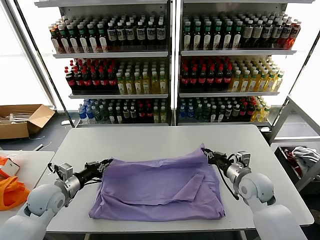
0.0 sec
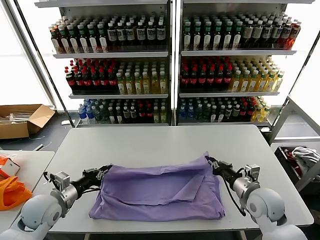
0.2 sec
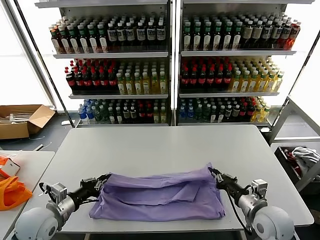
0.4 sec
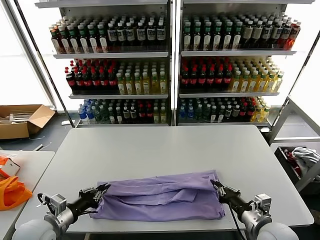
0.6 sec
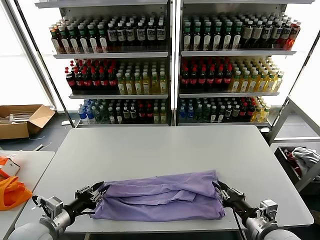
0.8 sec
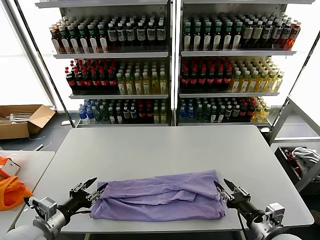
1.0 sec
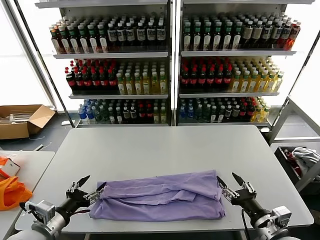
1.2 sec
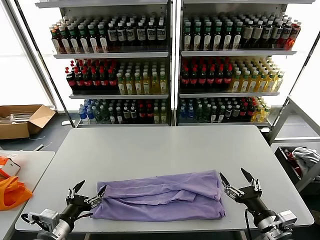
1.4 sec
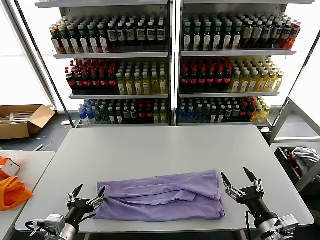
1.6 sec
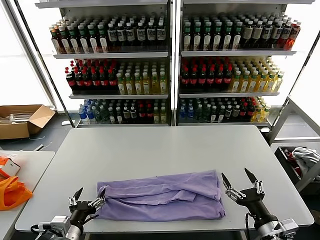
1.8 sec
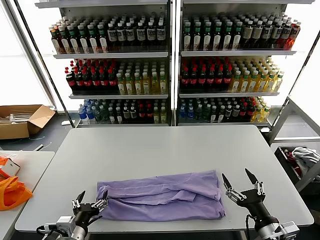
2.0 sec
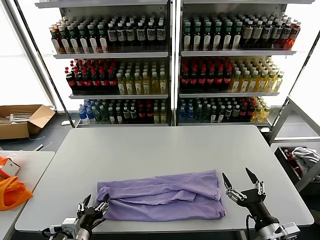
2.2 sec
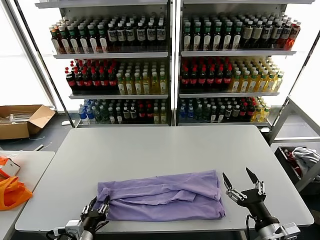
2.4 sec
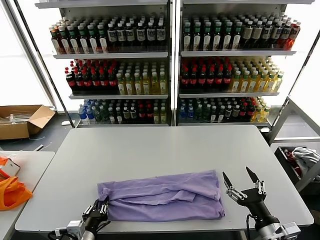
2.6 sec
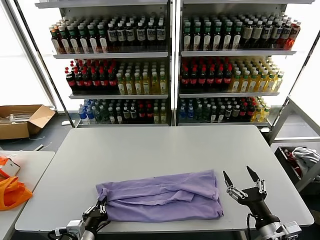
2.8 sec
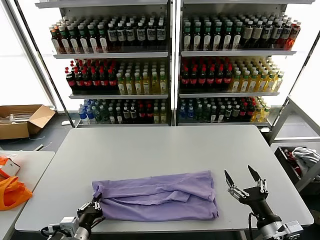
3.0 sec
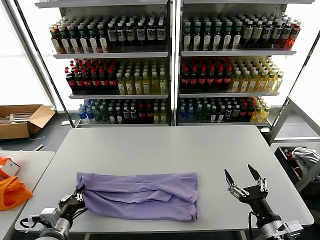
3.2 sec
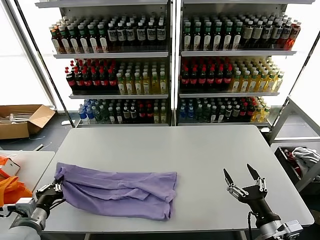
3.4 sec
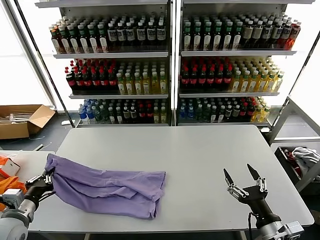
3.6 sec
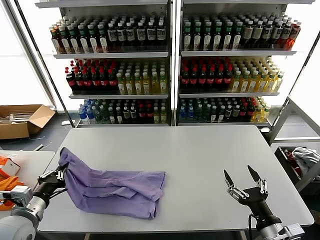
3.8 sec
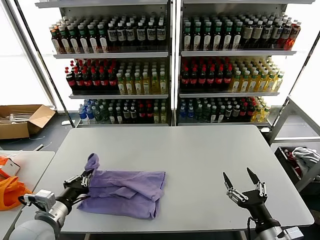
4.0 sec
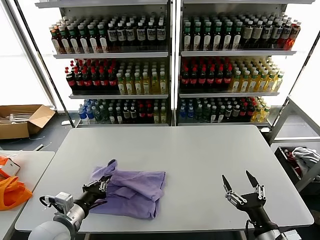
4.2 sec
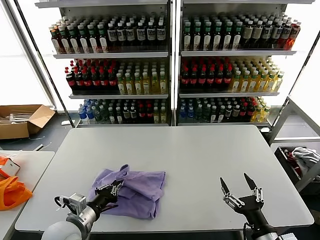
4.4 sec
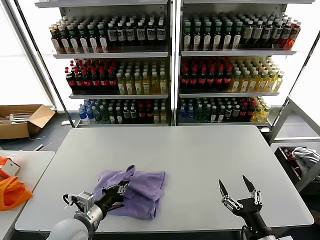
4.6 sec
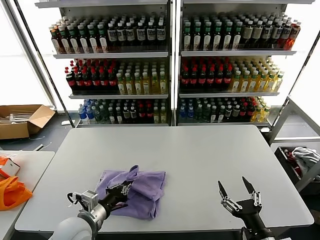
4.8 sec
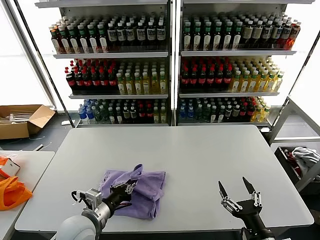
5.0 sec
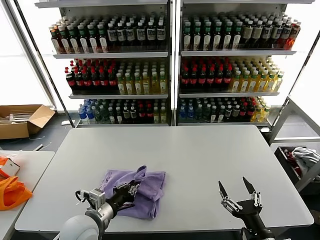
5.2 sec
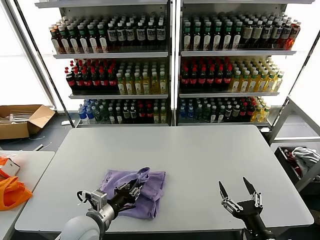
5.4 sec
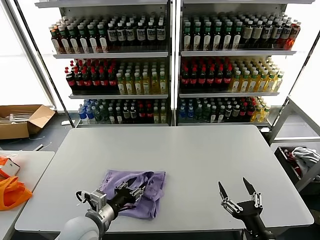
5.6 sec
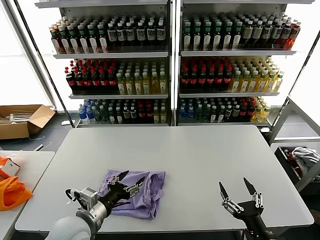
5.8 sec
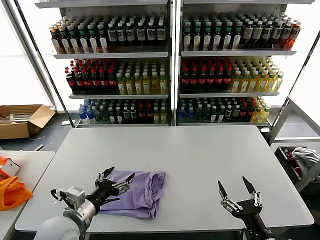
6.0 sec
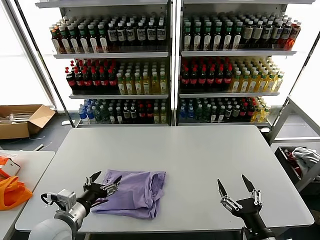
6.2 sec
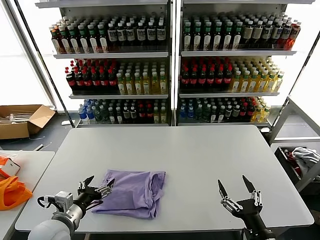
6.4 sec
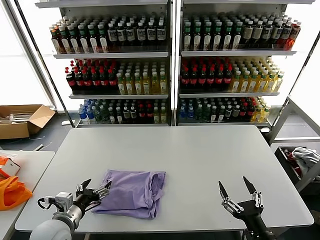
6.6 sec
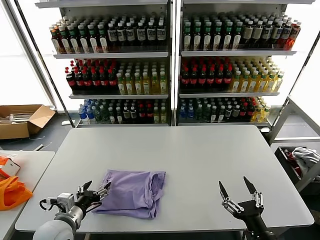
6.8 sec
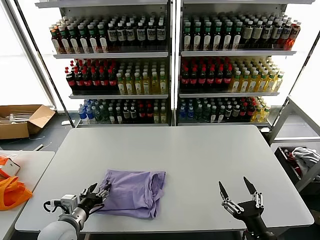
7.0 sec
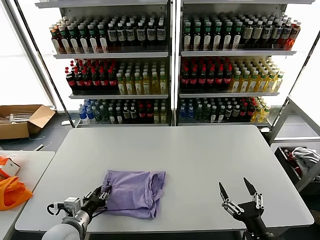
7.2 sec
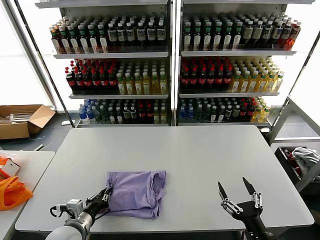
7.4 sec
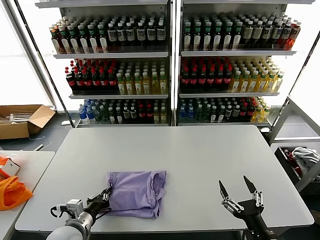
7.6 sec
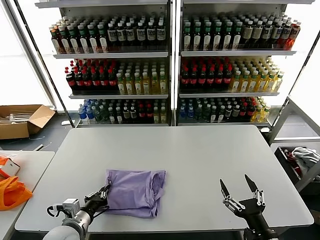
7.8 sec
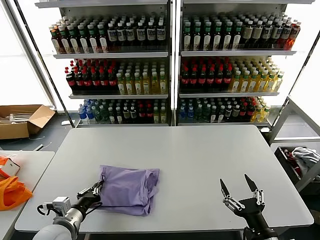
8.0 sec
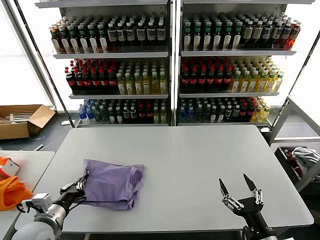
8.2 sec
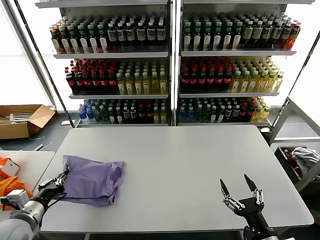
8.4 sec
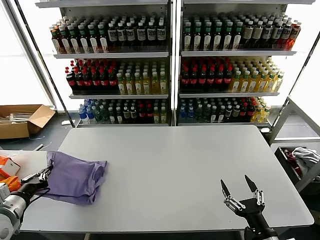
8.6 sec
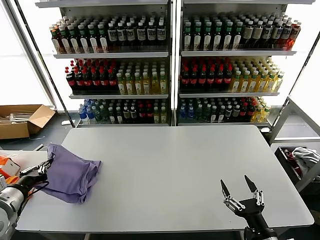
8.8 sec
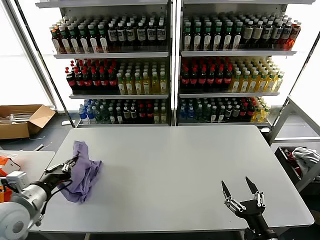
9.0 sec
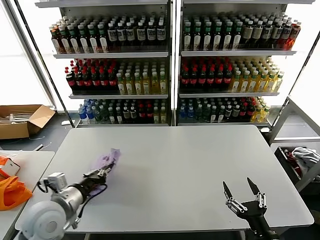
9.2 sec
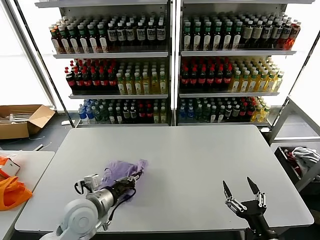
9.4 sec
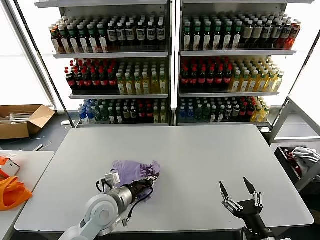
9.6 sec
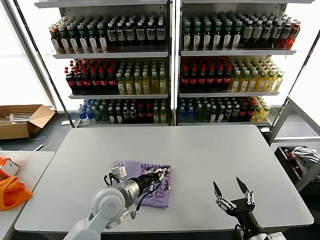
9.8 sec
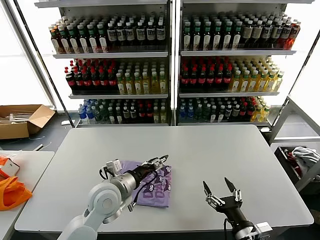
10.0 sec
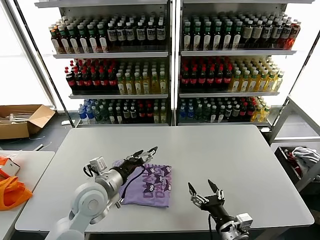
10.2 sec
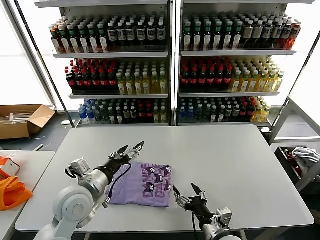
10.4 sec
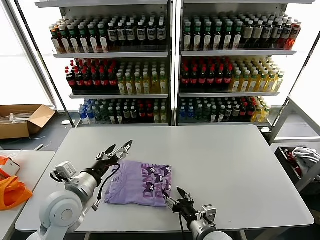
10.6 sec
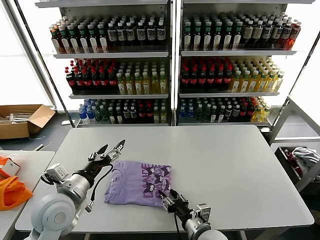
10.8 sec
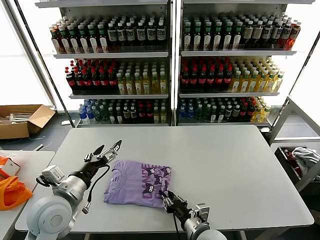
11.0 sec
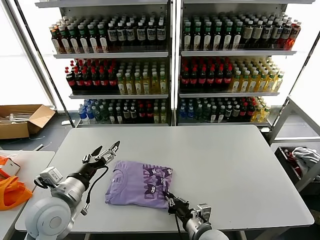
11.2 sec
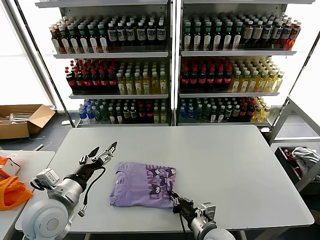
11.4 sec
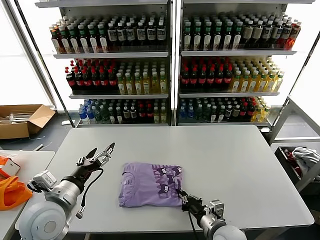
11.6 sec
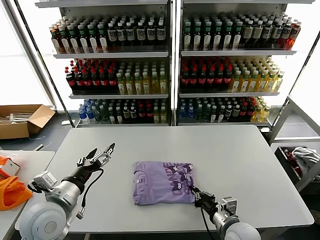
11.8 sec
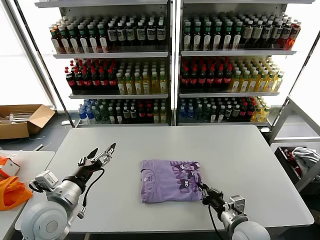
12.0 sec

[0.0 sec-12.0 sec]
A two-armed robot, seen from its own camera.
Task of the whole recording: fold and organize the clothes.
Step, 1.0 sec to 2.8 sec: use the left gripper to clamp the left edge of the fabric.
Step, 3.0 sec to 5.6 sec: use the left gripper to drag the left edge of the fabric to the left and folds it over the right edge.
Step, 5.8 sec to 9.8 sec: Flip the folded clothes over with left gripper.
0.0 sec to 1.6 sec: The left gripper heads backward and to the right, covering about 20 cm, and opens. Meanwhile the right gripper moves backward, roughly 20 cm, and opens up.
1.6 sec to 3.0 sec: The left gripper closes up.
3.0 sec to 4.4 sec: The left gripper moves roughly 15 cm to the left and comes back.
4.4 sec to 6.0 sec: The left gripper opens.
6.0 sec to 7.6 sec: The left gripper moves downward, approximately 10 cm, and closes its fingers.
7.6 sec to 9.0 sec: The left gripper shifts about 15 cm upward and to the left.
9.0 sec to 10.4 sec: The right gripper travels to the left and forward by approximately 15 cm, while the left gripper heads to the right, covering some 15 cm, and opens.
10.4 sec to 12.0 sec: The left gripper heads to the left and backward, covering approximately 10 cm, while the right gripper heads to the right, covering roughly 5 cm, and closes.

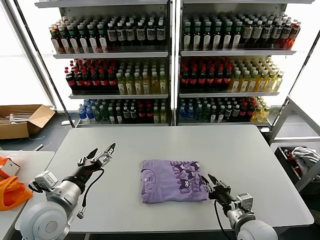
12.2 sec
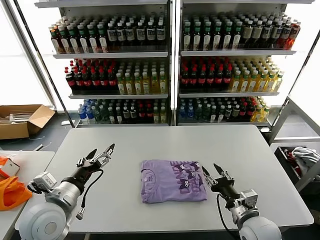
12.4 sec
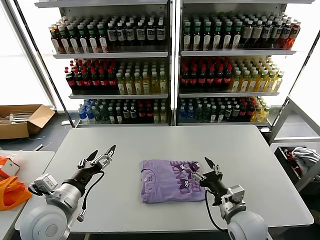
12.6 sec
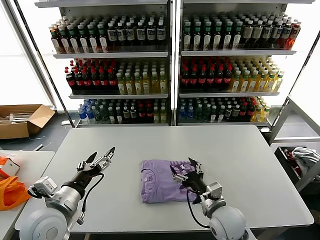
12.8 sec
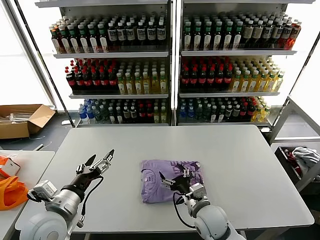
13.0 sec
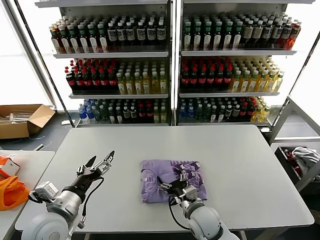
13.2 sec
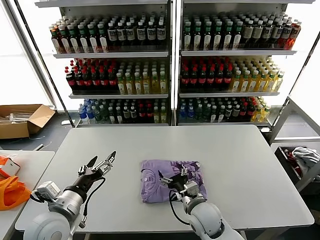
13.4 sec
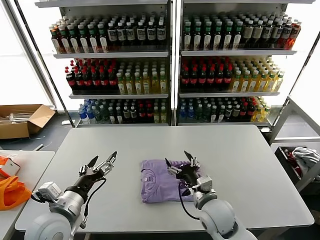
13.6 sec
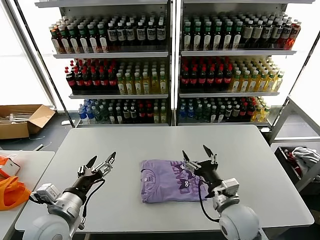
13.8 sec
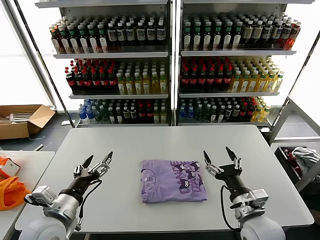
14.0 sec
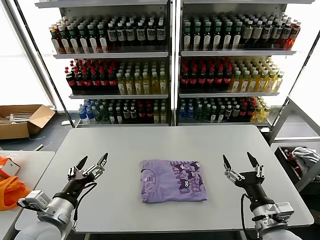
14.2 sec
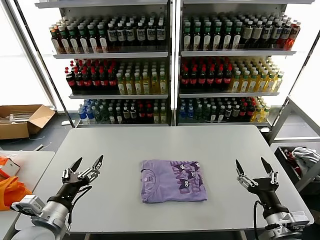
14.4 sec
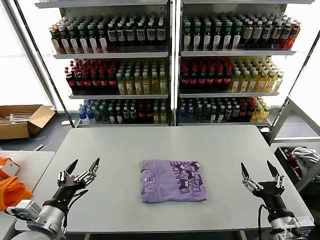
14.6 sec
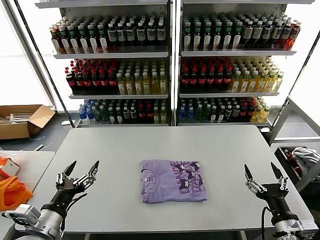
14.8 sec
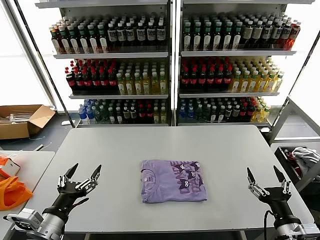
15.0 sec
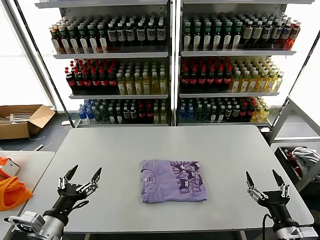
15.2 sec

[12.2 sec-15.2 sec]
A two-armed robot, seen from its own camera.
Task of the whole recording: fold and organize the clothes.
12.2 sec to 13.8 sec: The right gripper goes some 5 cm to the left, and opens up.
13.8 sec to 15.2 sec: The left gripper is displaced backward by about 5 cm; the right gripper goes roughly 20 cm to the right and backward.
